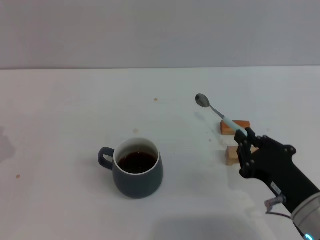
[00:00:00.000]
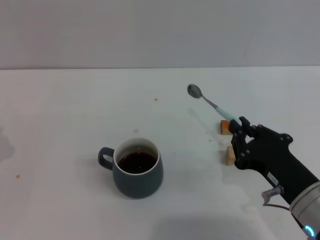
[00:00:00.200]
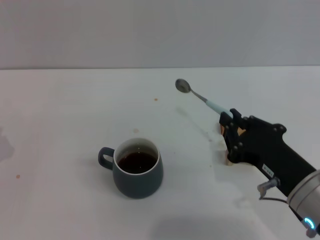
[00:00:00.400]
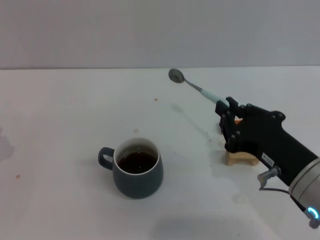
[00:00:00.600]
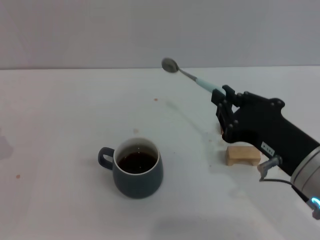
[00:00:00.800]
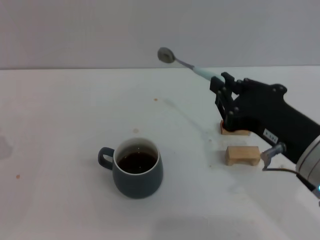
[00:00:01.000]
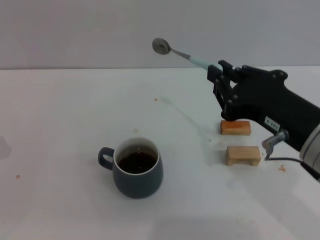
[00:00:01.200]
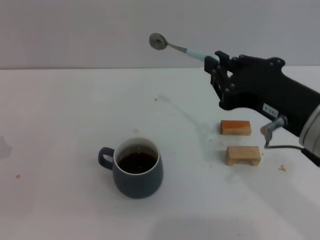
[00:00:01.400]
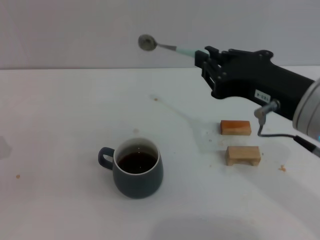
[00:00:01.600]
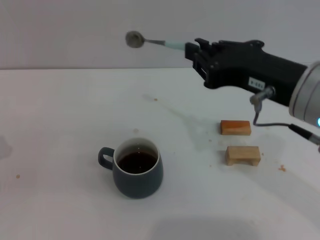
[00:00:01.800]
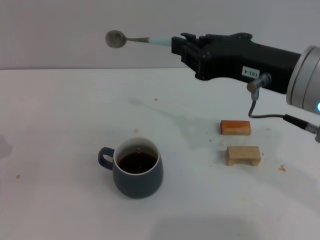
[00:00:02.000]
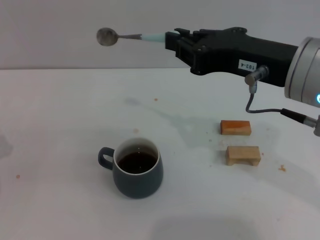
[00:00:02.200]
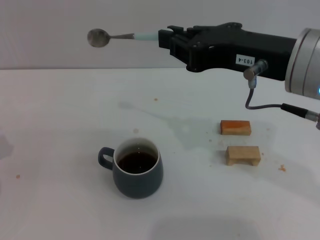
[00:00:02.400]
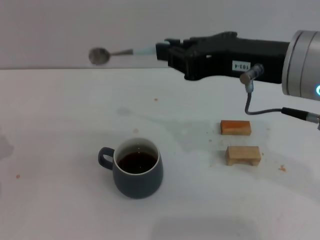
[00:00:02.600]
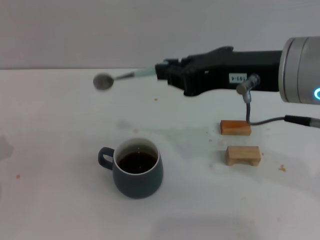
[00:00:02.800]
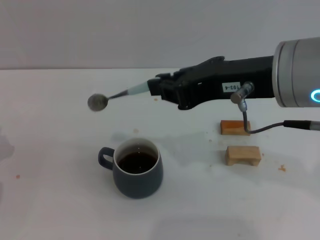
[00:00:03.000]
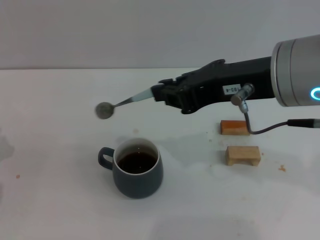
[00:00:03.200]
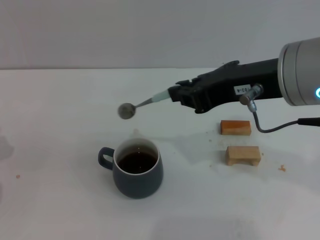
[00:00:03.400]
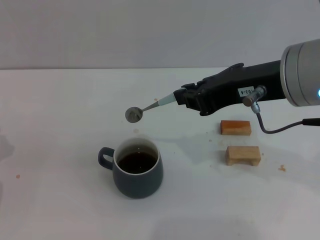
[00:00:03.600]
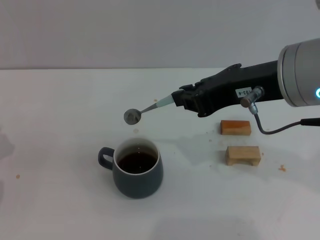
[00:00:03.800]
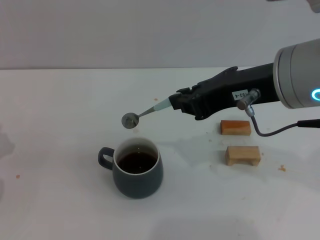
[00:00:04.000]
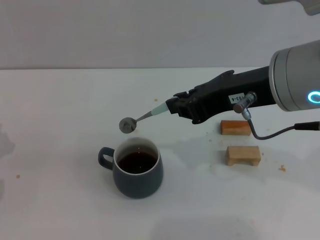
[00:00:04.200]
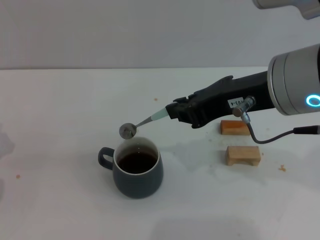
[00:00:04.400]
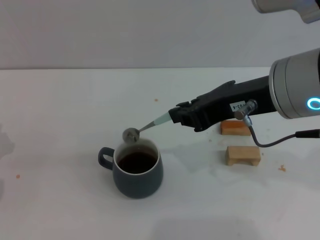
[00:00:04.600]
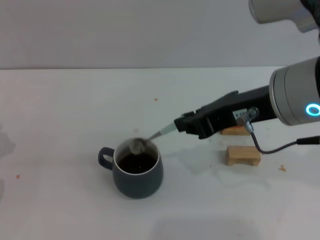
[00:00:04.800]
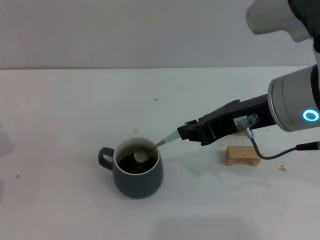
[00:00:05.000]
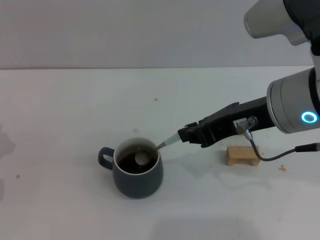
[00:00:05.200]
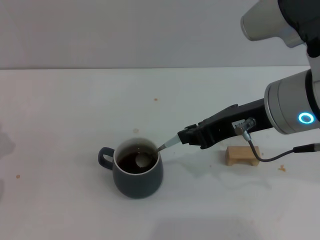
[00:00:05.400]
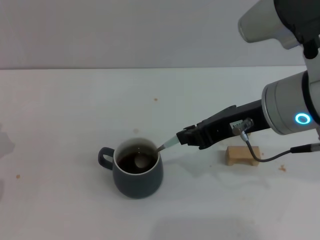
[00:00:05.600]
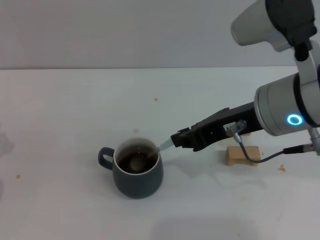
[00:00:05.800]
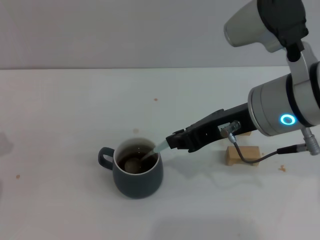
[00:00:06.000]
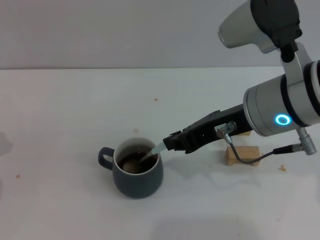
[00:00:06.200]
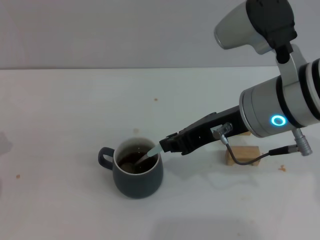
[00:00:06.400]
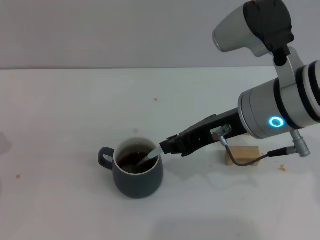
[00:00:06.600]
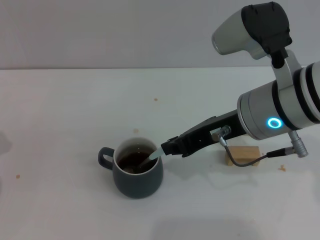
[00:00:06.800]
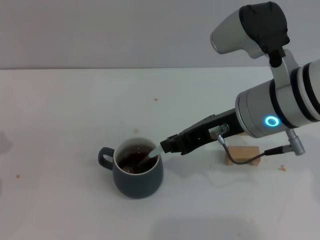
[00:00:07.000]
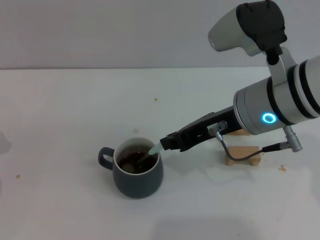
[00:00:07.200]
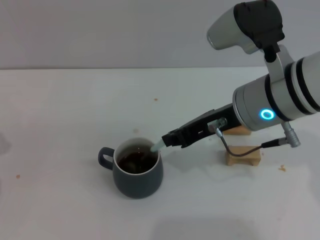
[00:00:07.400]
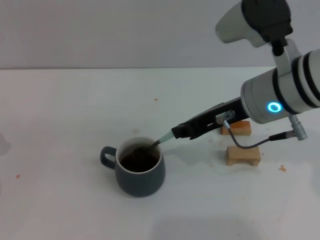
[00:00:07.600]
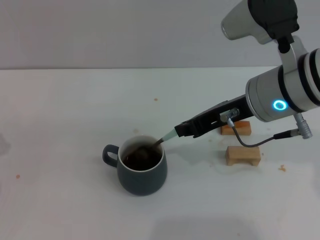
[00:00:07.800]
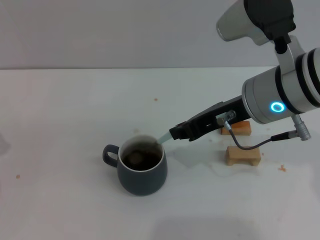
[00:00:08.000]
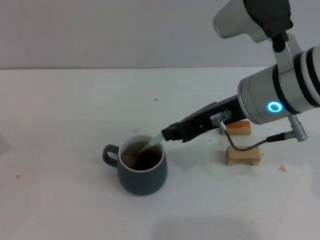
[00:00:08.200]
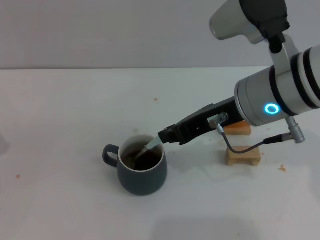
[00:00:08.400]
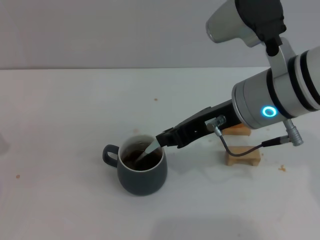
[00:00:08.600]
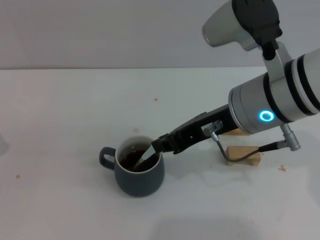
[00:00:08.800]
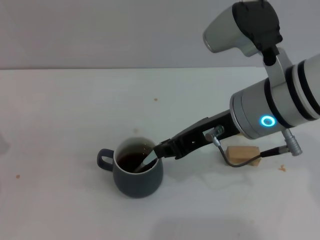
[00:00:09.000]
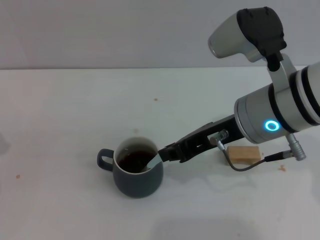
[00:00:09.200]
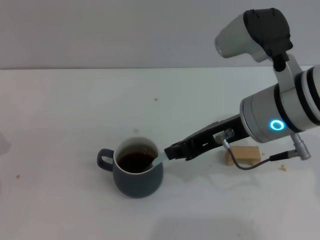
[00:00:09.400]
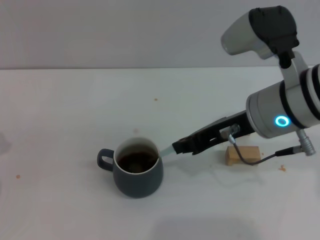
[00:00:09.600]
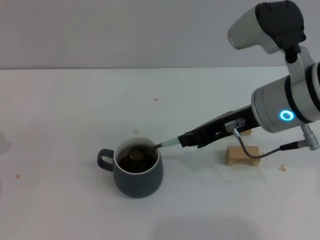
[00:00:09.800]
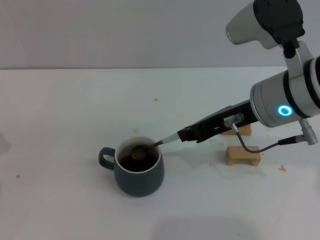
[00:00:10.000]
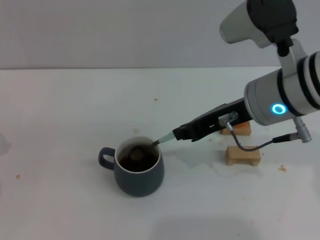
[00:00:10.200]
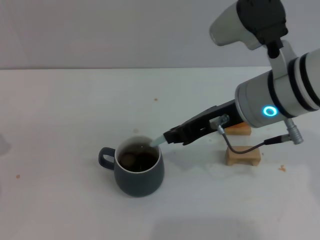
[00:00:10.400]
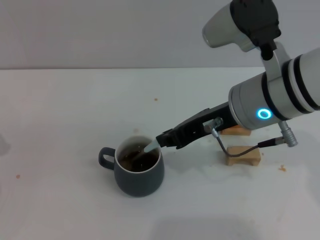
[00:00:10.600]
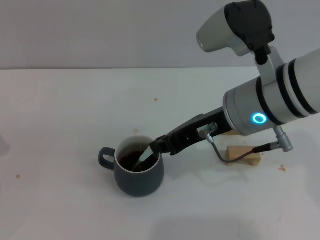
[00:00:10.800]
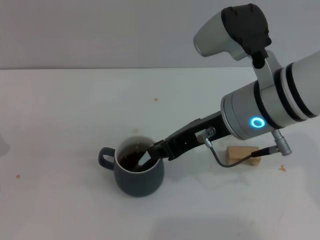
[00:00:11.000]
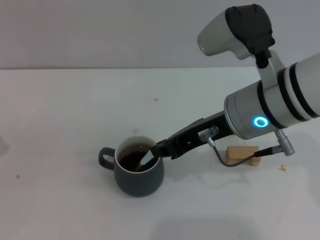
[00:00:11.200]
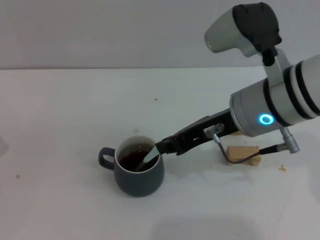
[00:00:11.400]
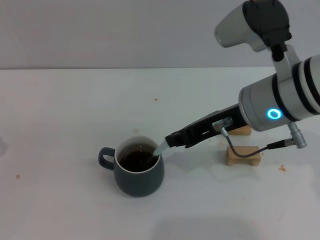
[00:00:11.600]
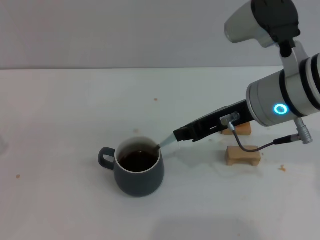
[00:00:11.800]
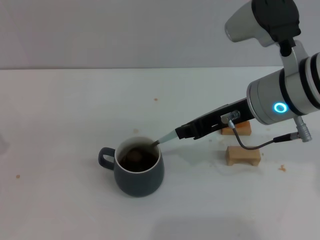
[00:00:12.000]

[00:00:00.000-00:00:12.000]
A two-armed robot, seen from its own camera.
Task of the whole recording: Move the grey cup to the center, lift the blue spoon, stir it three times in the cup, and put the spoon into the cup.
00:00:00.000 to 00:00:01.600: The right gripper travels upward by some 15 cm.
00:00:01.600 to 00:00:03.000: The right gripper heads upward, covering approximately 5 cm.
00:00:03.000 to 00:00:04.400: The grippers stay close to where they were, moving slightly.
00:00:04.400 to 00:00:06.000: The right gripper moves roughly 5 cm.
00:00:06.000 to 00:00:12.000: The grippers make only small movements.

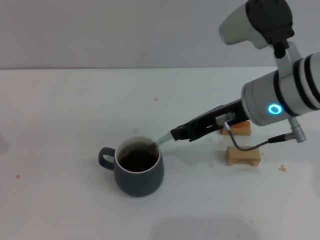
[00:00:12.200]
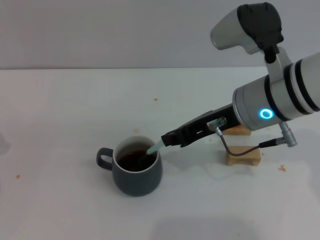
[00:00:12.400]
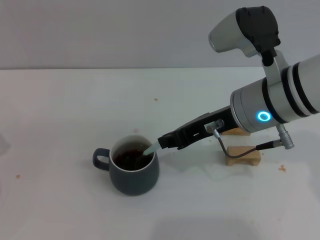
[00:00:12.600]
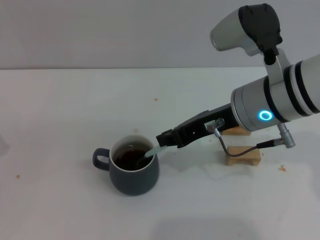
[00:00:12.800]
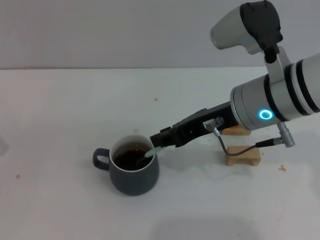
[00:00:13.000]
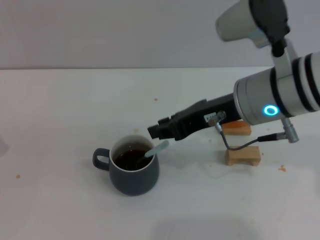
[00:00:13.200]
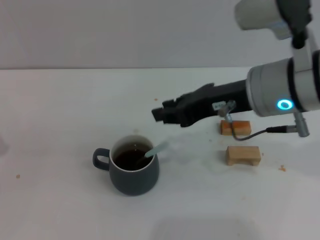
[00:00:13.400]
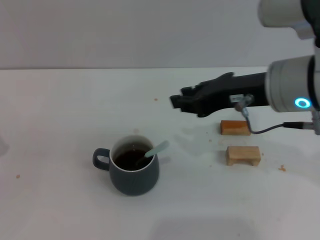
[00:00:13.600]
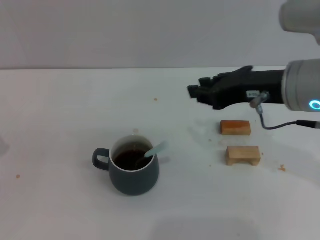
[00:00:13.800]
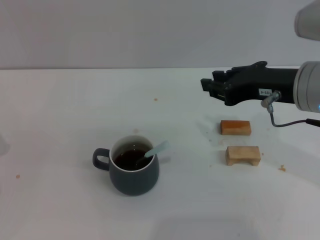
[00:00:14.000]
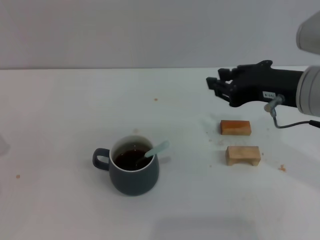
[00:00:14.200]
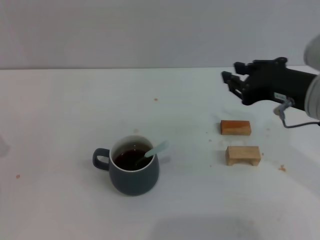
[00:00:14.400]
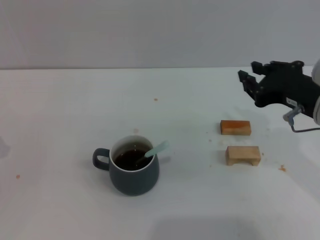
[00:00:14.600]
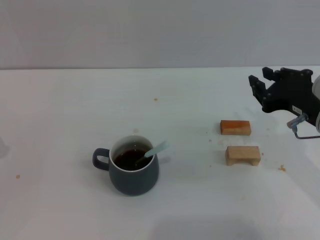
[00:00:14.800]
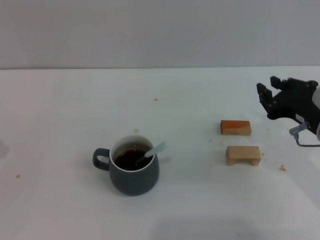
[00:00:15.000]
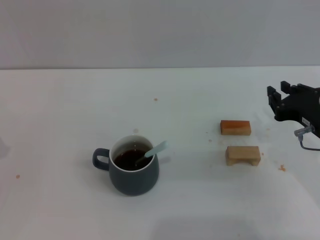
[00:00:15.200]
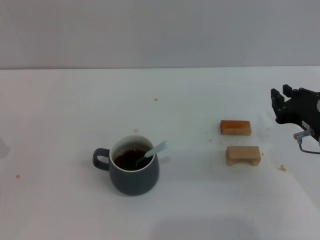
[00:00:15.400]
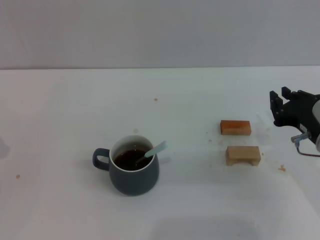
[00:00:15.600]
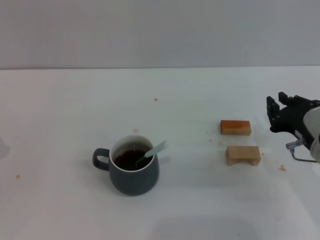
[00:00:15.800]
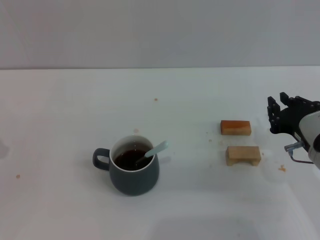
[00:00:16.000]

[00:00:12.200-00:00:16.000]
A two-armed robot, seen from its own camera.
Task of the whole recording: Move the grey cup to the center, lift the blue spoon, stir it three times in the cup, and put the spoon into the cup.
00:00:12.200 to 00:00:13.400: The grippers move only a little.
00:00:13.400 to 00:00:14.800: The right gripper is displaced to the right and downward by roughly 10 cm.
00:00:14.800 to 00:00:16.000: The right gripper shifts roughly 5 cm downward.
